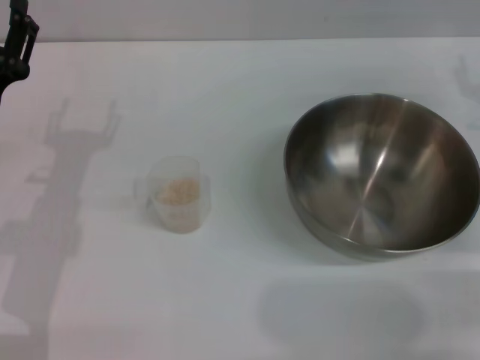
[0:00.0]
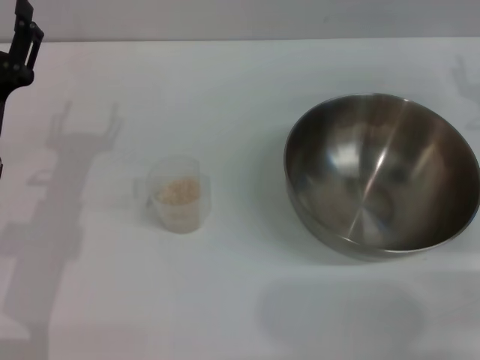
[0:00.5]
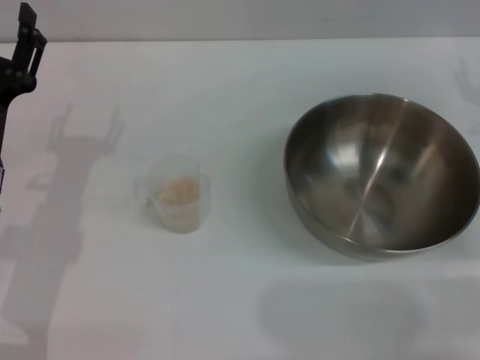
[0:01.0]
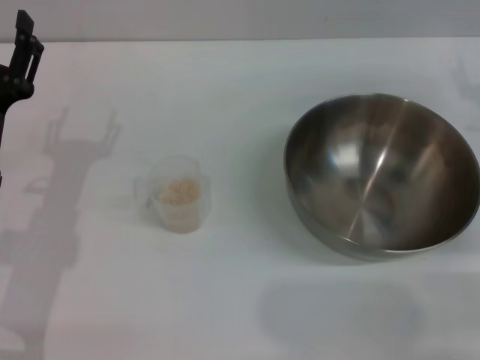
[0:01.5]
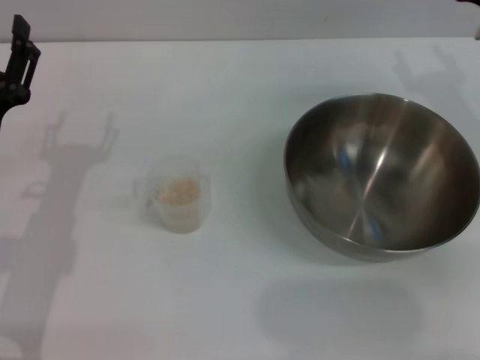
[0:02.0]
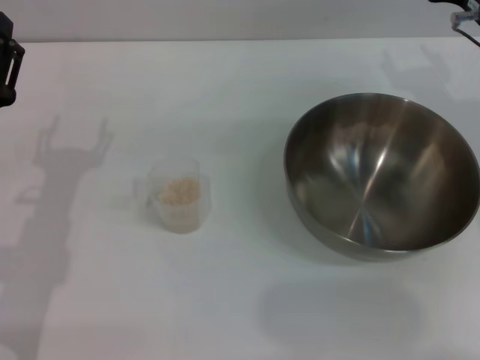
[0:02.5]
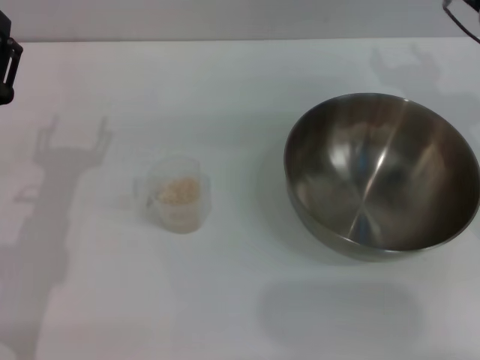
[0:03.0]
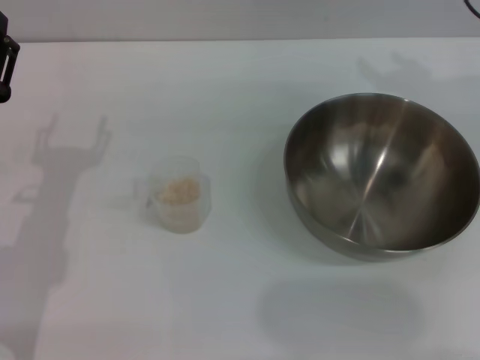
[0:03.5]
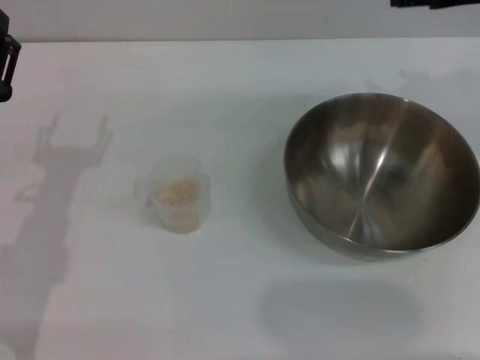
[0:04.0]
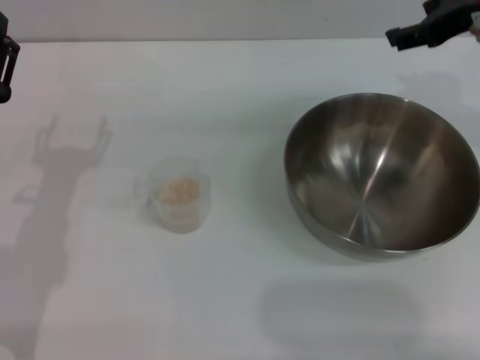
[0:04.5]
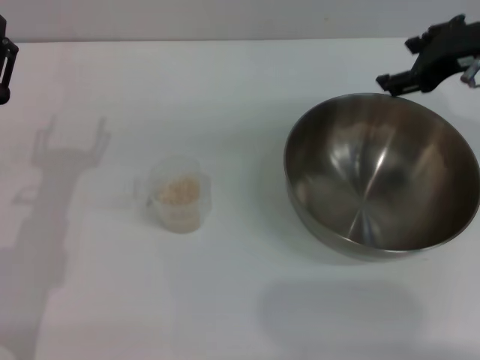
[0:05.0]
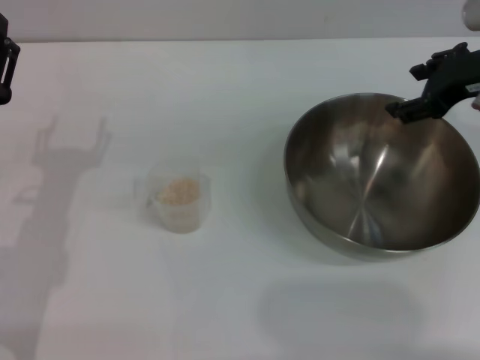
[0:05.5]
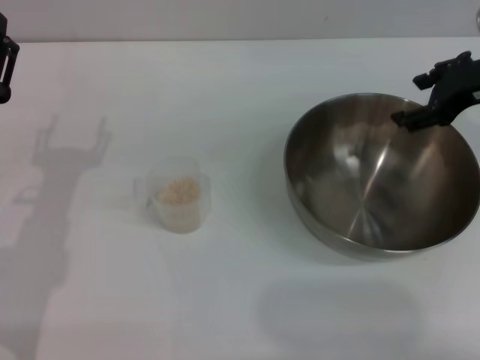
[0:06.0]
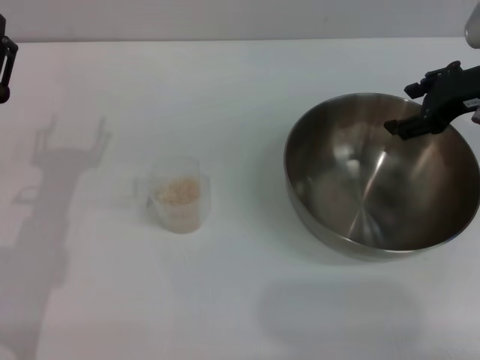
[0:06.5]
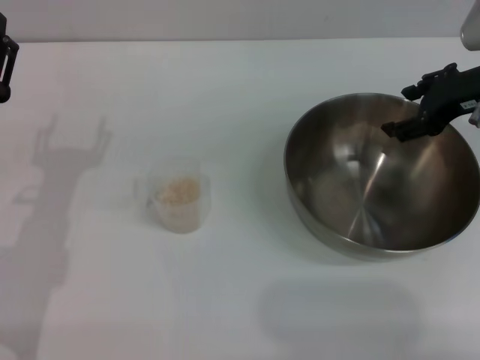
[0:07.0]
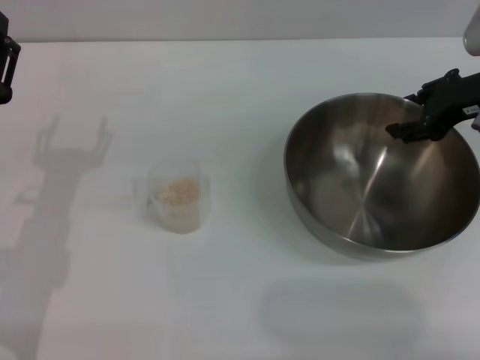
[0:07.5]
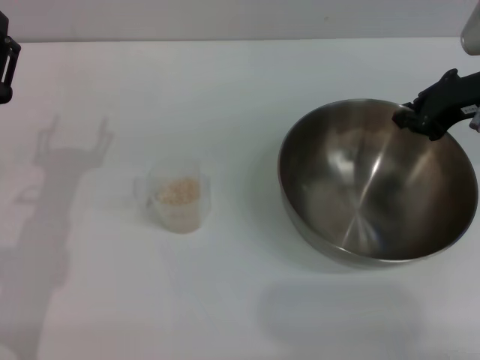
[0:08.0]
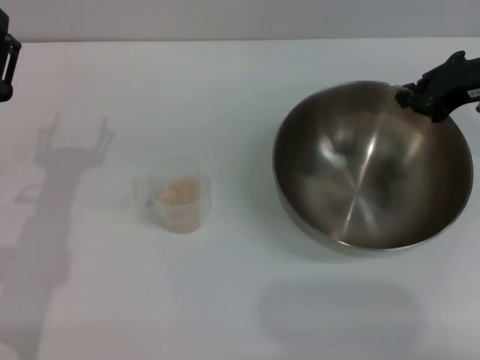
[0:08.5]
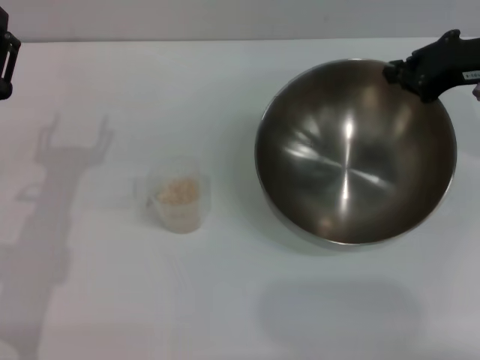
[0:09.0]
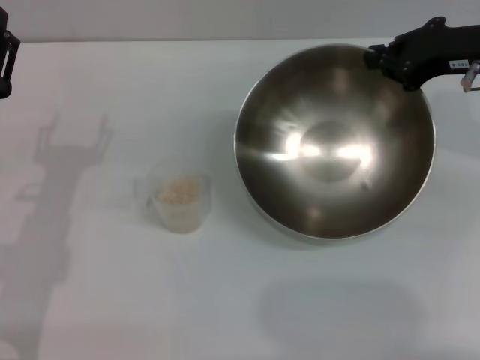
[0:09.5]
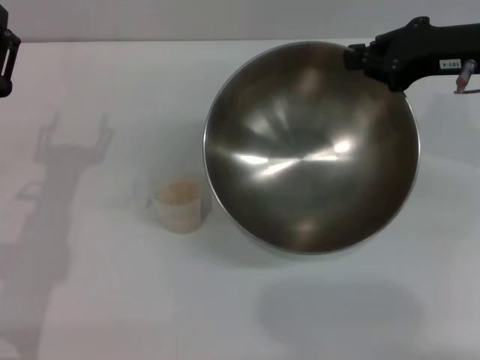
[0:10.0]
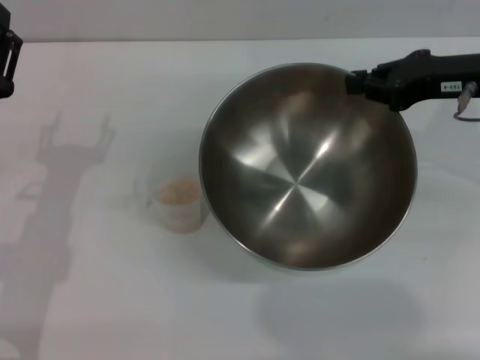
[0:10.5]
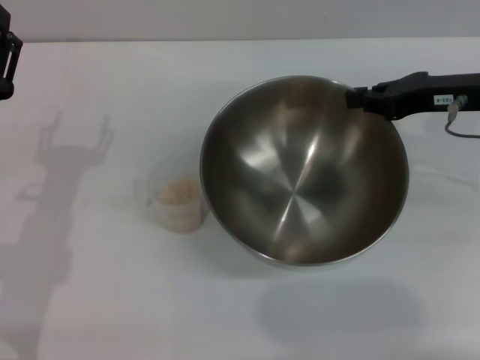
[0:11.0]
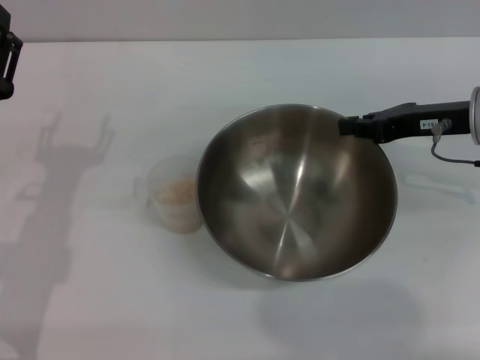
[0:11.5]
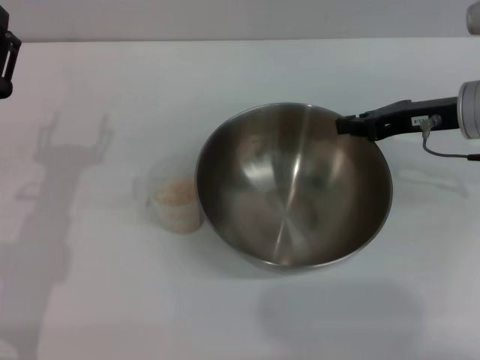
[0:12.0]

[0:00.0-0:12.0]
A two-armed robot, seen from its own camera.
Task of the whole recording: Place the bowl in the middle of the table with one hand and pour the rice from the grain cup into it with the other hand.
Step, 0:00.0 to 0:09.5: Pick up the bowl with the right gripper.
0:00.0 to 0:02.0: The right gripper changes place by some 5 cm.
0:02.0 to 0:04.0: The right gripper moves upward, some 10 cm.
0:04.0 to 0:06.0: The right gripper heads downward, covering about 10 cm.
0:06.0 to 0:08.0: The right gripper closes up.
0:10.0 to 0:12.0: The right gripper travels downward by roughly 5 cm.

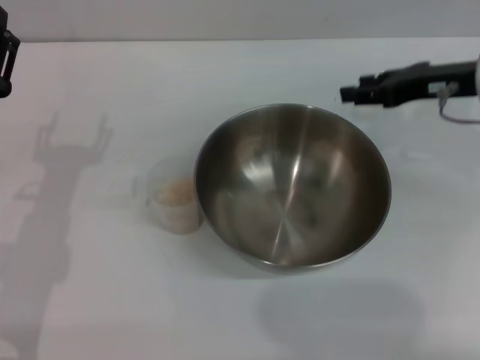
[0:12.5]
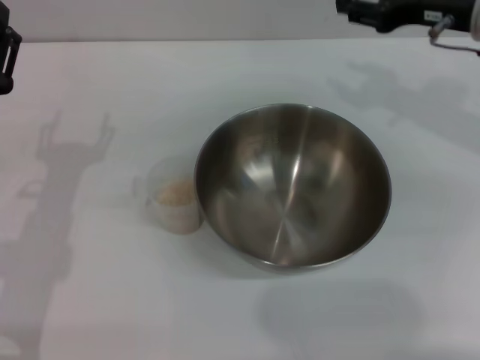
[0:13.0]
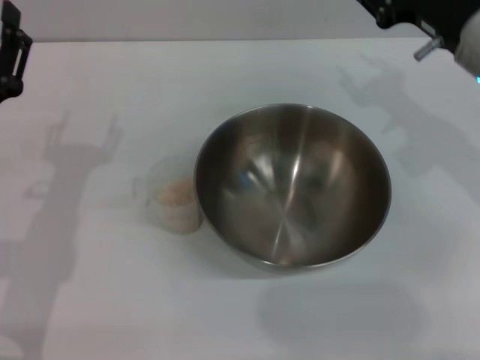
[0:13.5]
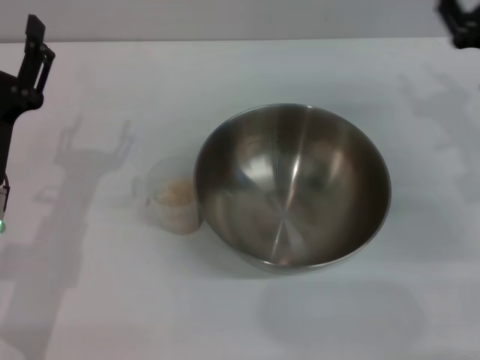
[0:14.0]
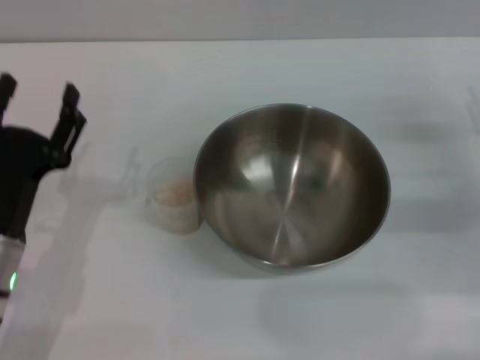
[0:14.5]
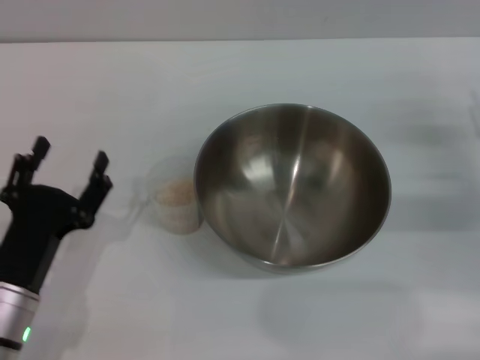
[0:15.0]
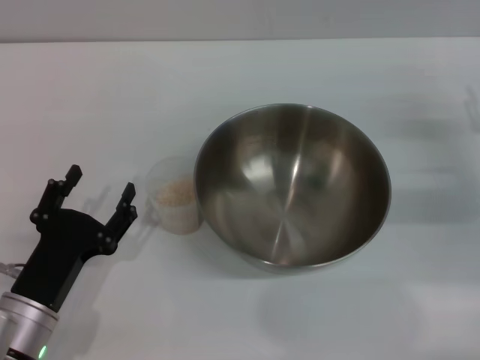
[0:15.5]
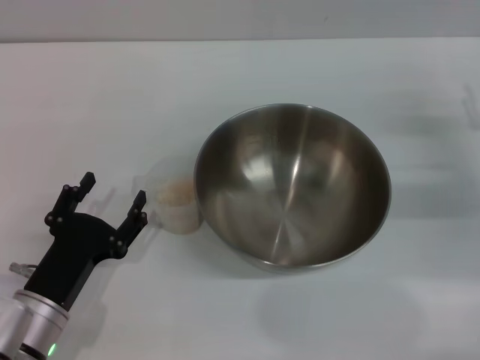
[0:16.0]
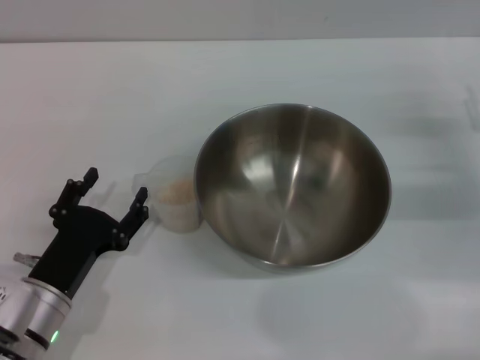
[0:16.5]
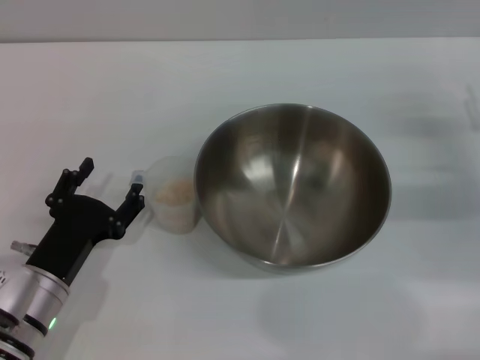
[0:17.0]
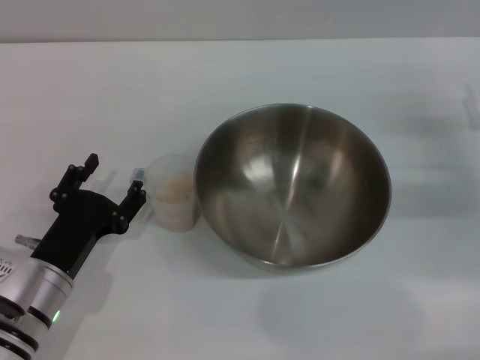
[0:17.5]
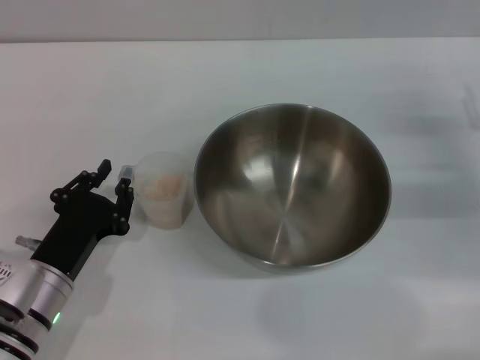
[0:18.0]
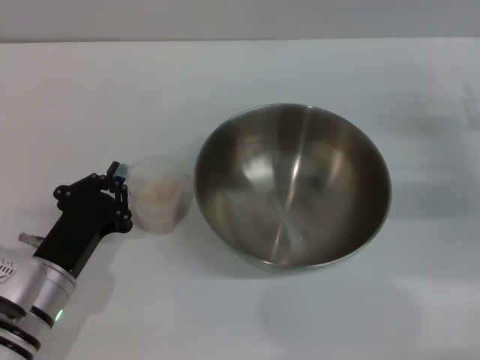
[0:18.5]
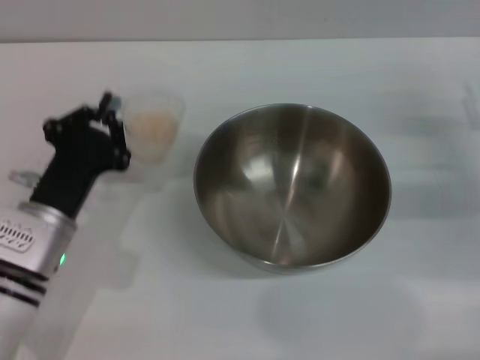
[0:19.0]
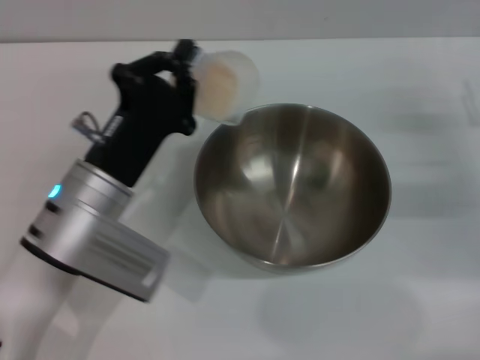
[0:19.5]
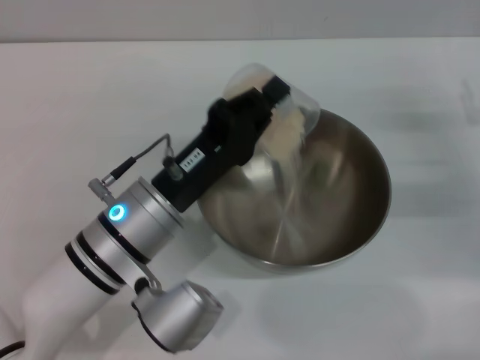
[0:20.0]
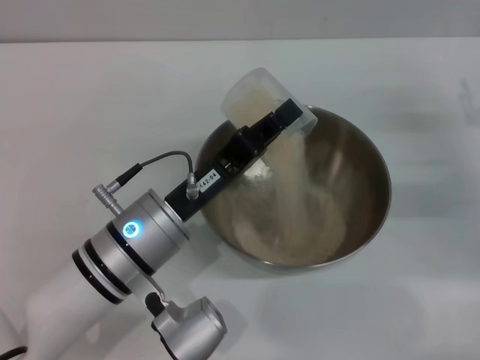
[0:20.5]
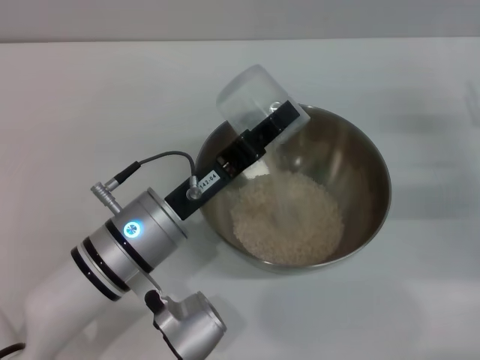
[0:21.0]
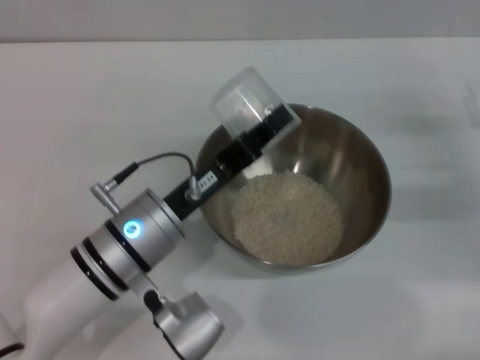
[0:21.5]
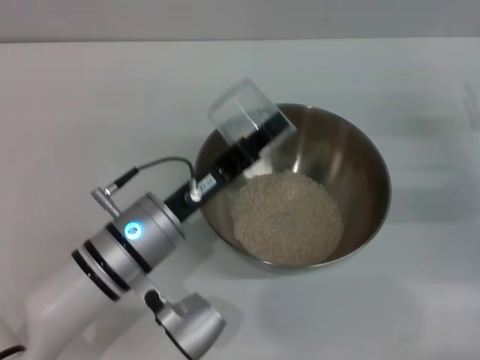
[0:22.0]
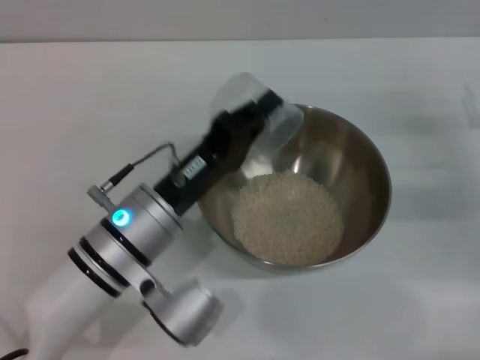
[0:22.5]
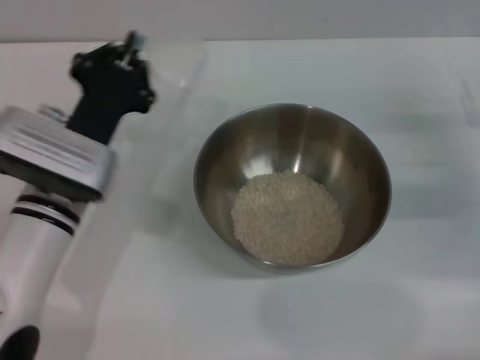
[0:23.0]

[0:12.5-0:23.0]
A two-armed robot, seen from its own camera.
Task of the whole recording: Place the bowl in the middle of the table with one hand and pour the rice from the grain cup into it with the other hand.
Step, 0:13.0 to 0:19.0: Pick up the cup with rice in it with the left gripper.
Step, 0:19.5 to 0:22.5: Pour the rice from the cup into the bowl with the left gripper.
0:12.5 to 0:14.5: The left gripper ends up about 5 cm from where it was. The right gripper moves downward, backward and to the right, approximately 15 cm, and opens up.
0:14.5 to 0:16.5: The left gripper changes place by some 5 cm.
0:16.5 to 0:19.0: The left gripper is displaced forward by approximately 5 cm, and closes.
0:19.0 to 0:21.0: The left gripper travels to the right by about 10 cm.
0:21.0 to 0:23.0: The left gripper is displaced to the left and forward by about 10 cm.

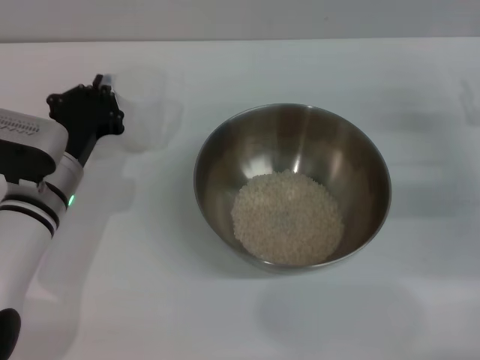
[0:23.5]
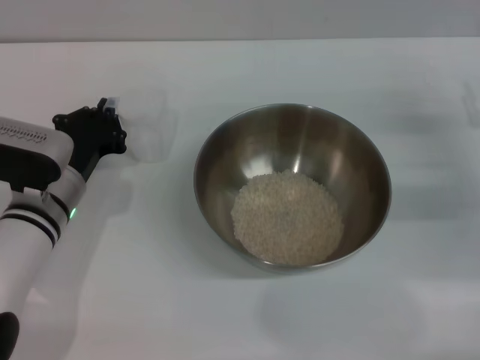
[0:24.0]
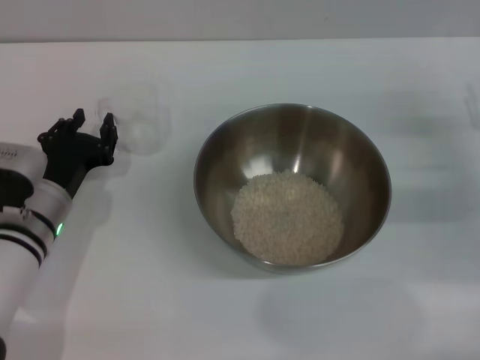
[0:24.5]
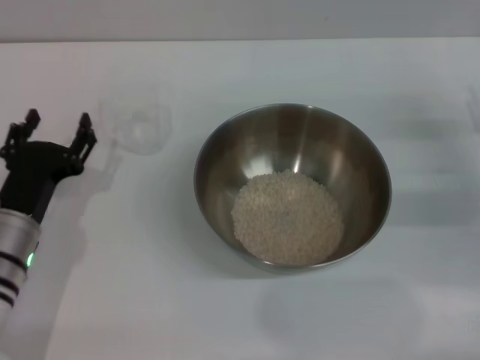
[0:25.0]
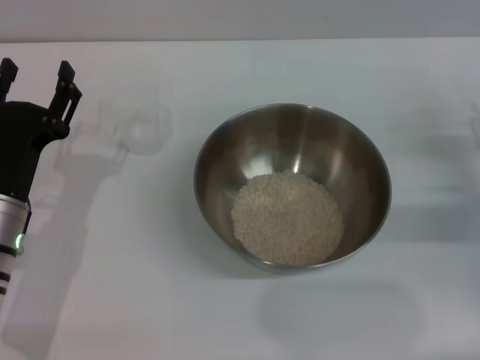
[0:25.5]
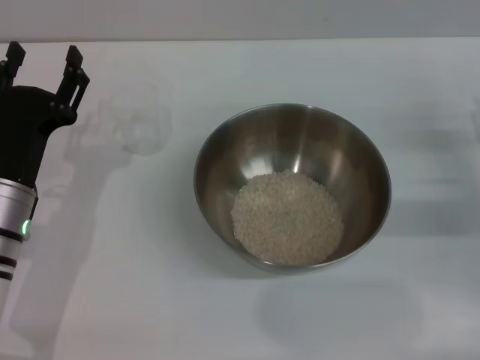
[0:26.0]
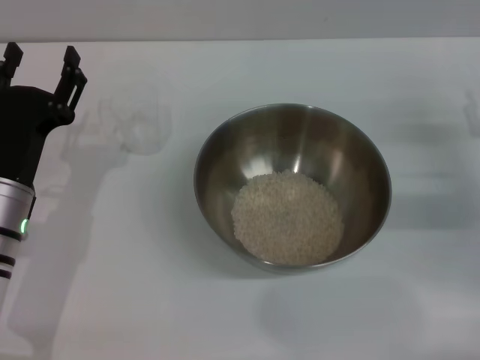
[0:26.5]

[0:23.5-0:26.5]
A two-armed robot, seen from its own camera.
Task of the whole recording: Place the bowl in the middle of the table with one hand and pour the rice from the grain cup into it with the other hand.
0:23.5 to 0:25.0: The left gripper heads backward, covering approximately 5 cm, and opens its fingers.
0:25.0 to 0:26.5: There are only small adjustments of the grippers.
